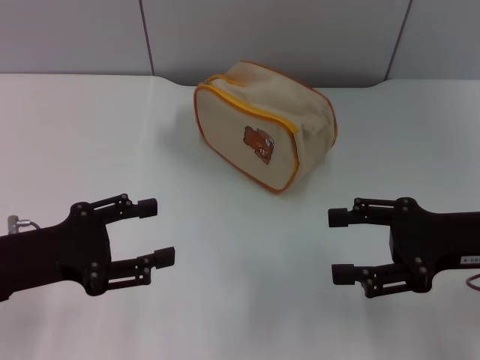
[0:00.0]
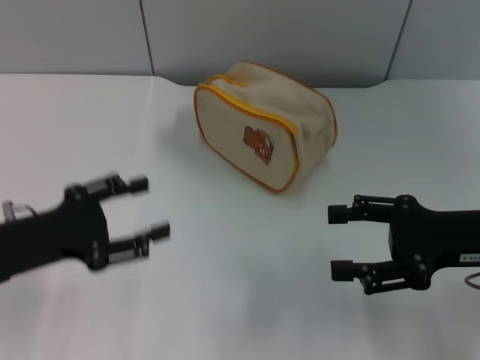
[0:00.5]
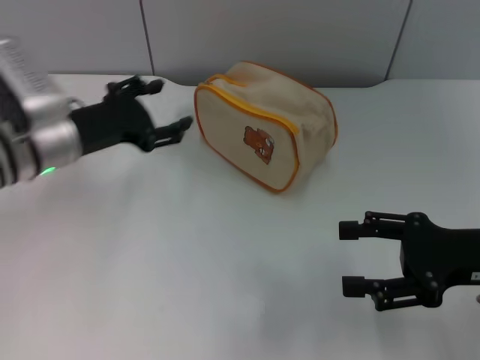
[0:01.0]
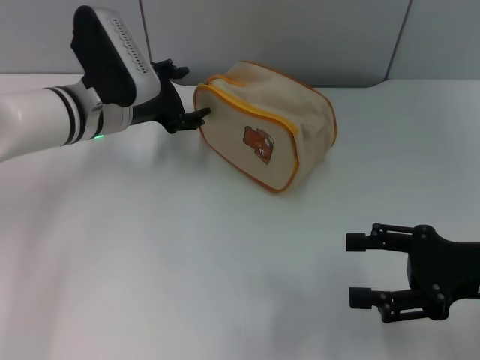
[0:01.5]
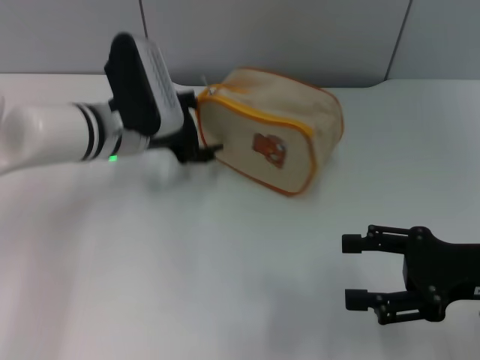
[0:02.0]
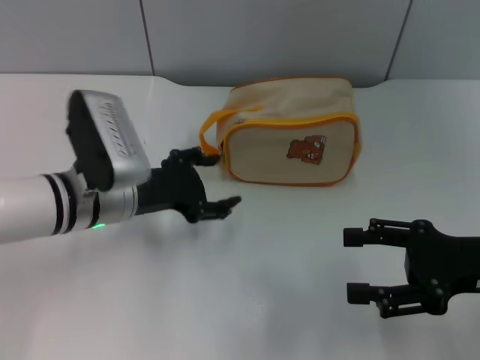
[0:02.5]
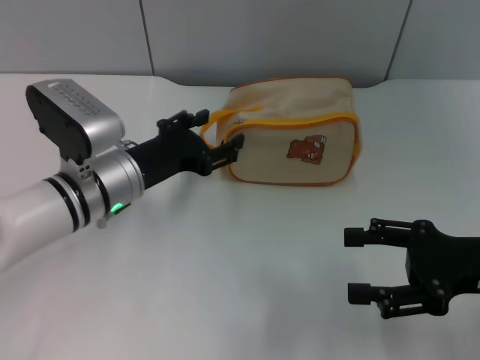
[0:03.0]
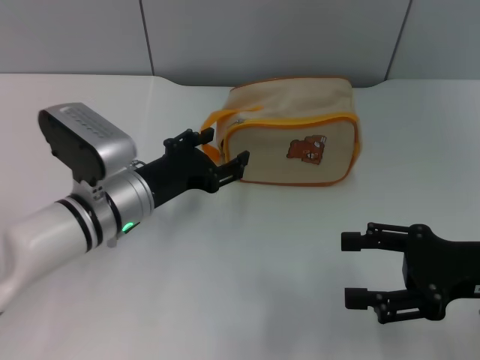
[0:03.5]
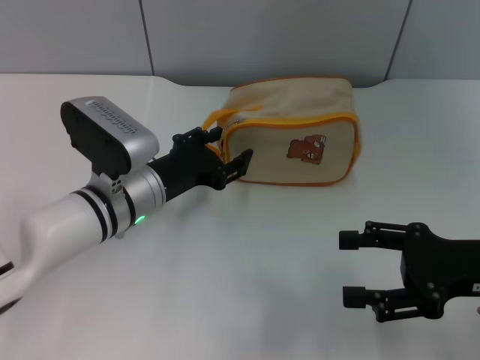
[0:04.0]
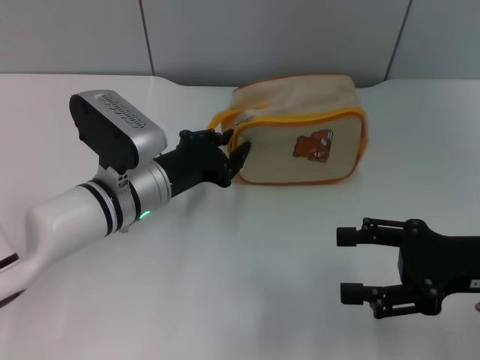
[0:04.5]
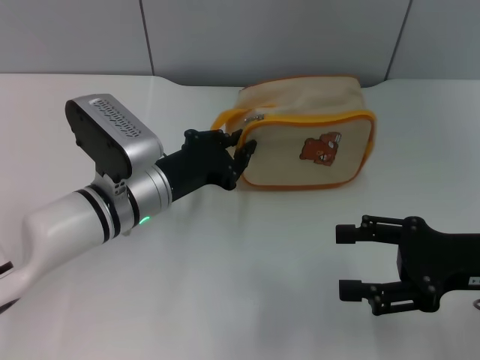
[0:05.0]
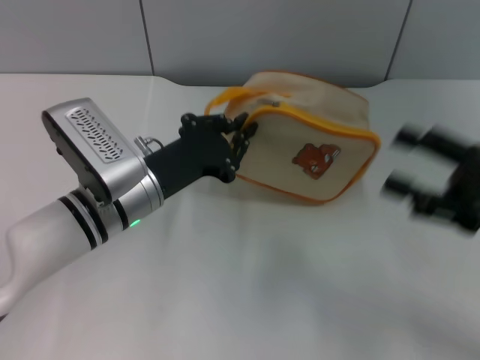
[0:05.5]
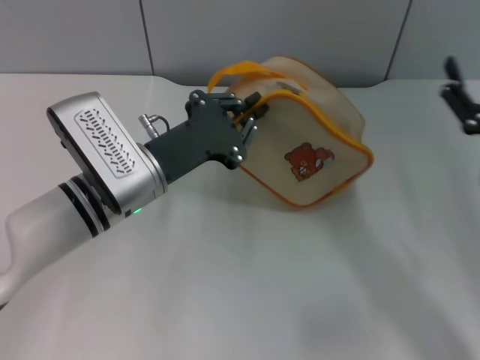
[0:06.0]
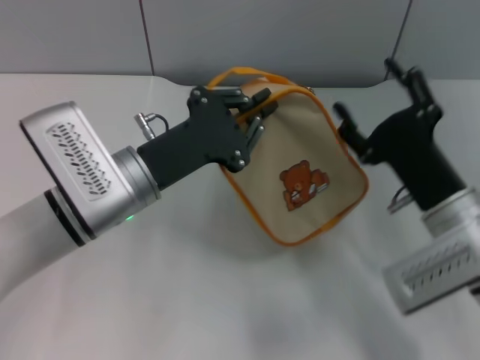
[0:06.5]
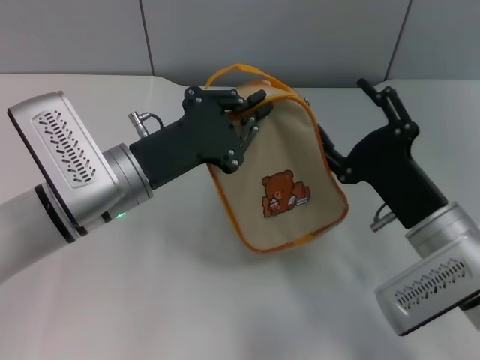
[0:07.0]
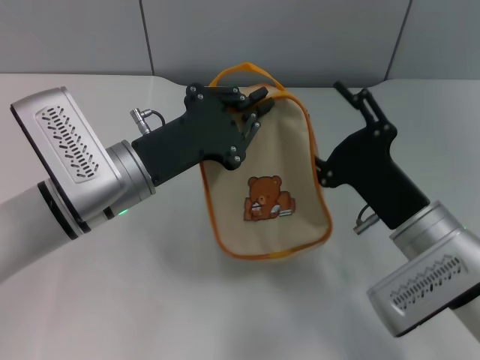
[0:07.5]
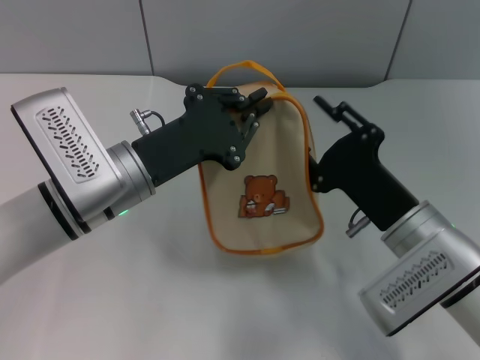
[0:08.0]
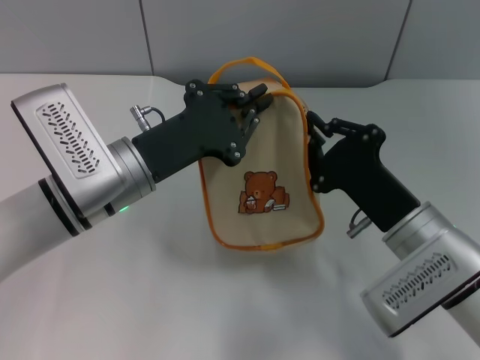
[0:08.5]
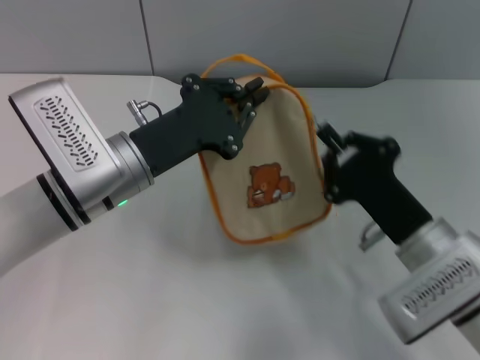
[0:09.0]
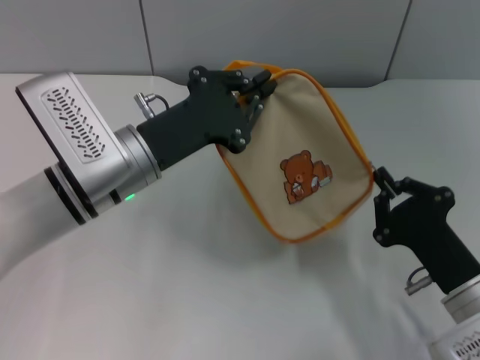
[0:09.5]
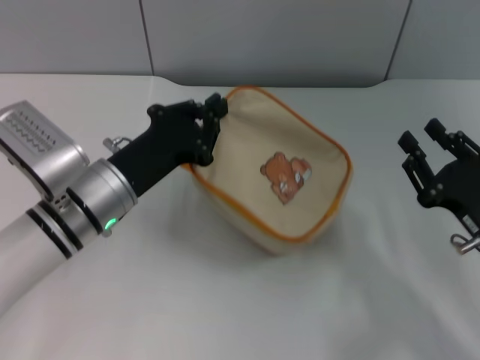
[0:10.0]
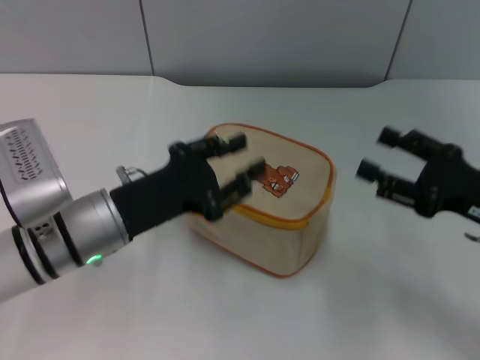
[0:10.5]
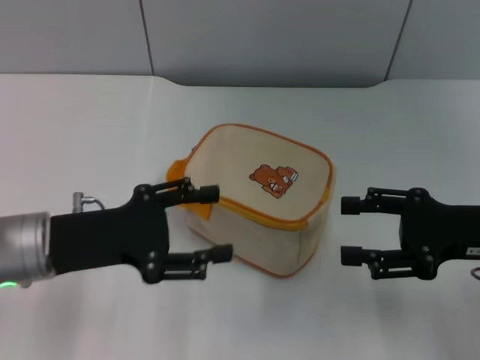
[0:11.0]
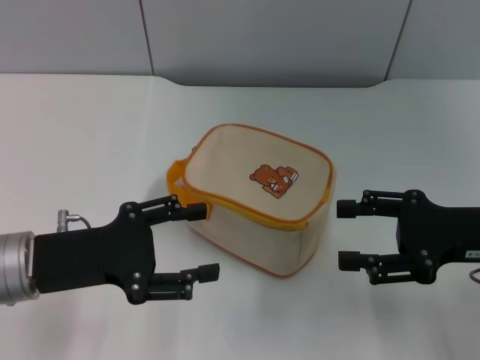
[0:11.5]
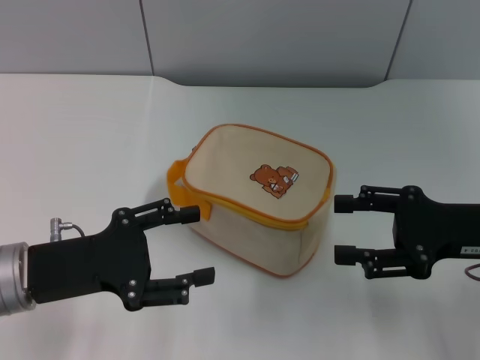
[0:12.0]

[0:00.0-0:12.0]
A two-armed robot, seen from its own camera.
Step, 0:00.0 to 0:05.5: Pick up the bag with left gripper.
Step, 0:06.0 to 0:09.5: Unzip the zipper of bag with right gripper.
0:00.0 to 0:02.0: The left gripper moves forward and to the right, roughly 20 cm.
0:02.0 to 0:04.0: The left gripper goes approximately 5 cm backward.
0:04.0 to 0:06.0: The left gripper closes up.
0:06.0 to 0:08.0: The right gripper goes some 10 cm to the left.
0:08.0 to 0:10.0: The right gripper is displaced to the right by some 10 cm, and closes up.
0:10.0 to 0:12.0: The right gripper is displaced upward by roughly 5 cm, and opens up. The left gripper moves to the left and backward, approximately 10 cm, and opens its fingers.

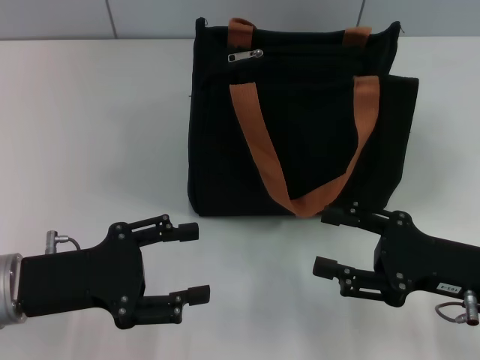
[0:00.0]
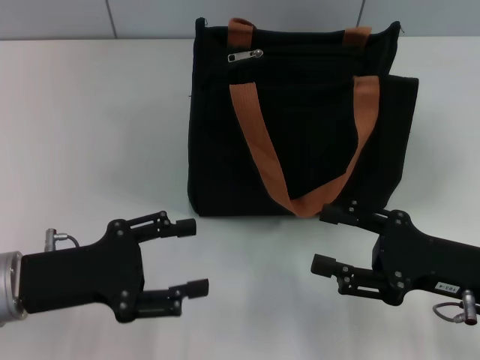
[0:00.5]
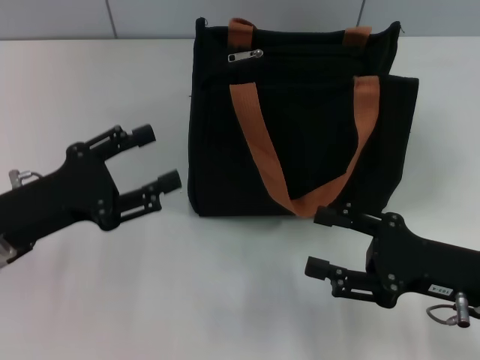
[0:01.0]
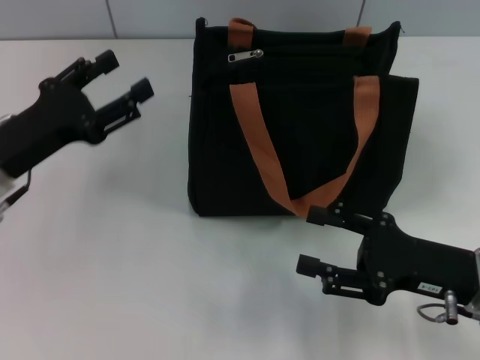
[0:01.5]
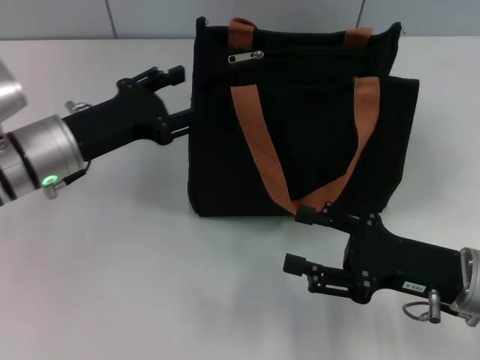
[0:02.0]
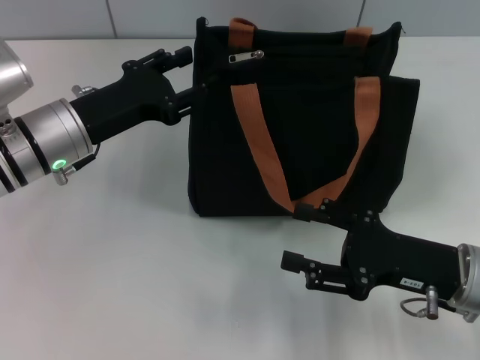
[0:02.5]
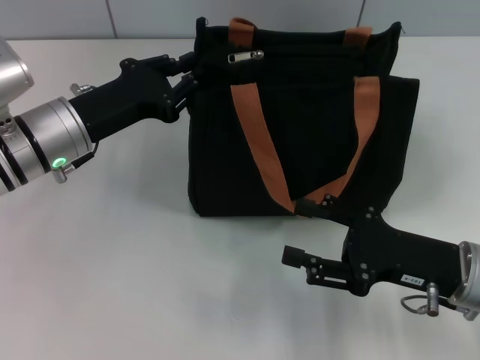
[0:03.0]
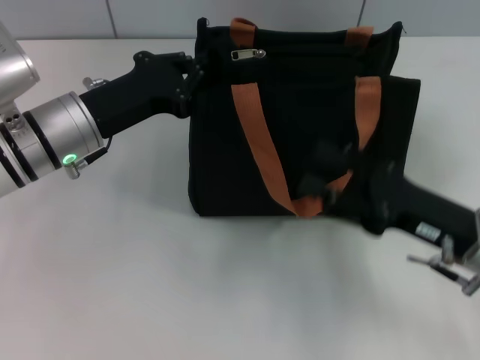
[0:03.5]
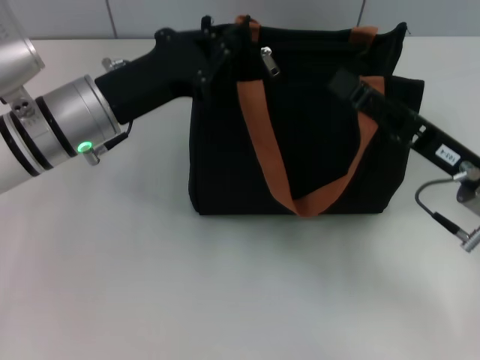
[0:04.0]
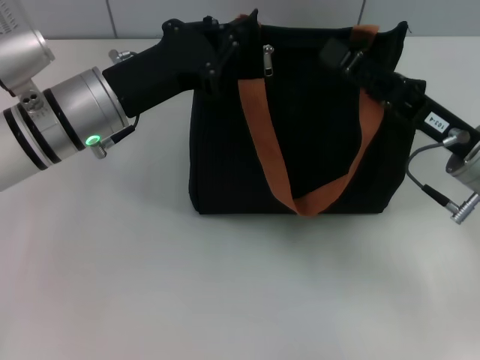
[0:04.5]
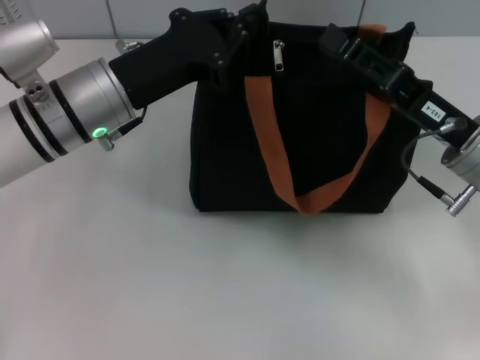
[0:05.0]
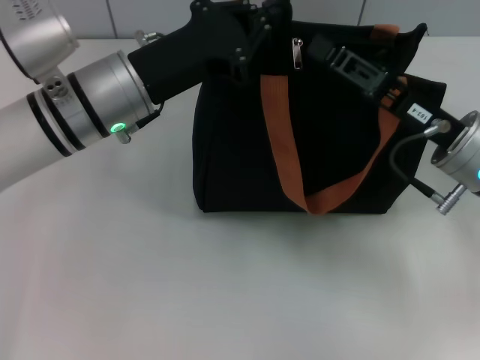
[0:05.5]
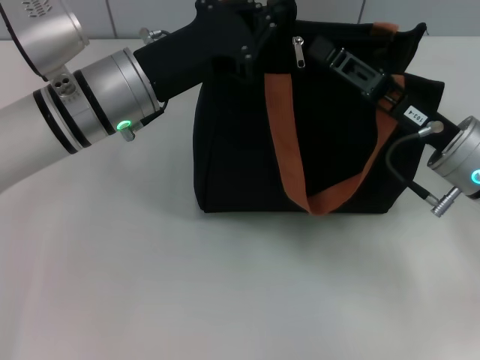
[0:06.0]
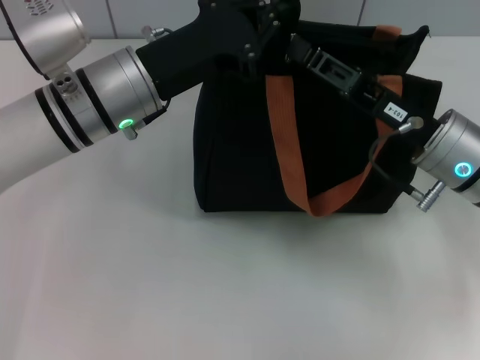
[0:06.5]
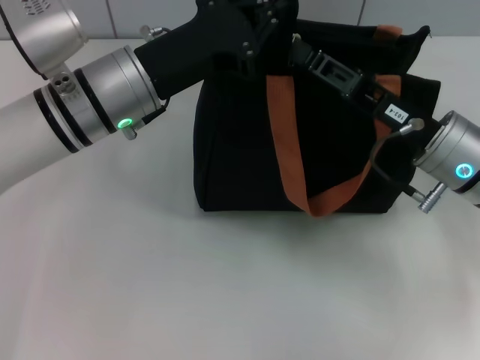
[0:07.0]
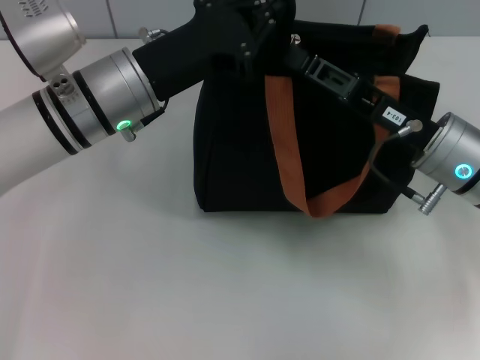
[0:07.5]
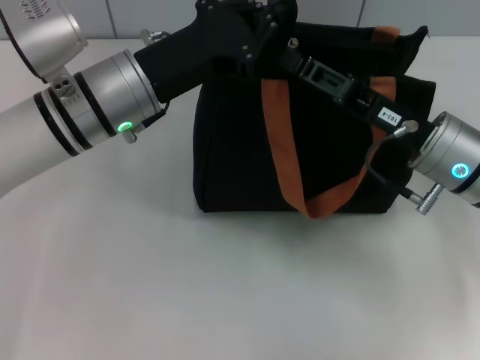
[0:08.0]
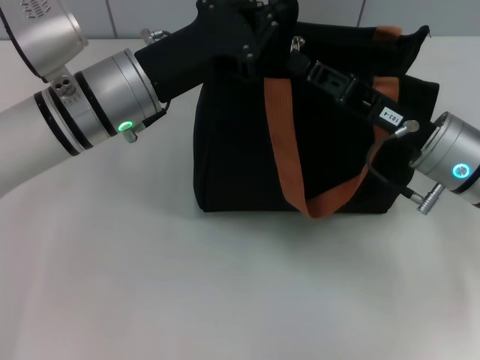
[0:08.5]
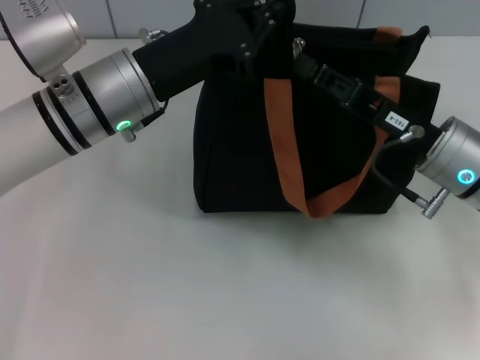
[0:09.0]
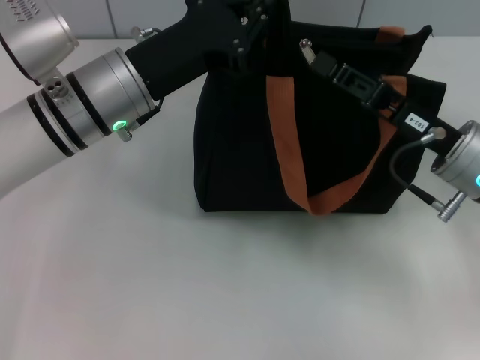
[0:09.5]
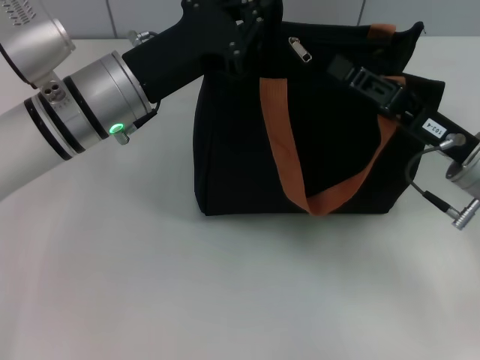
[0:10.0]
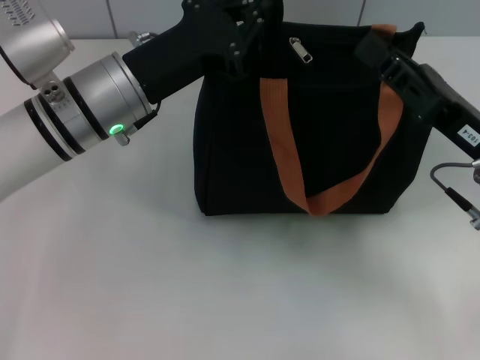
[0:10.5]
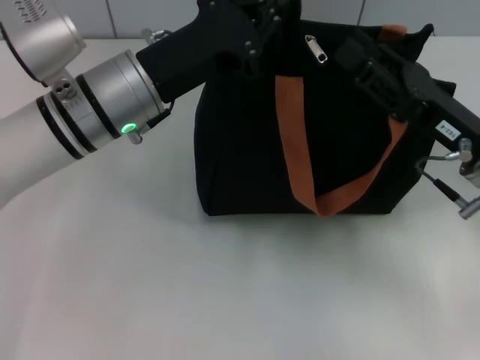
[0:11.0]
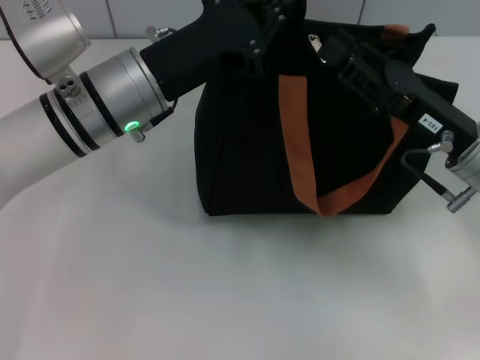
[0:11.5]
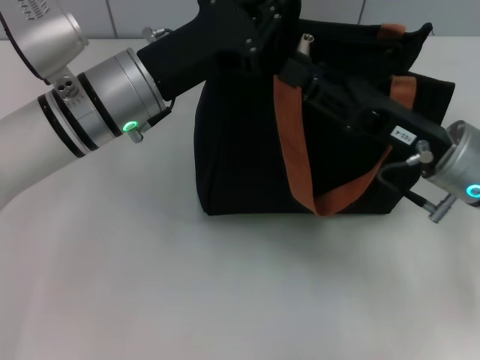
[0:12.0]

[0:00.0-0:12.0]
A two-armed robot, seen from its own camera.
0:00.0 to 0:02.0: The left gripper goes some 10 cm forward.
0:02.0 to 0:04.0: The left gripper changes place by about 5 cm, and closes. The right gripper moves forward, about 5 cm.
0:04.0 to 0:06.0: The right gripper closes its fingers.
0:06.0 to 0:08.0: The grippers stay close to where they were, moving slightly.
0:08.0 to 0:10.0: The right gripper closes up.
0:10.0 to 0:12.0: The right gripper opens its fingers.

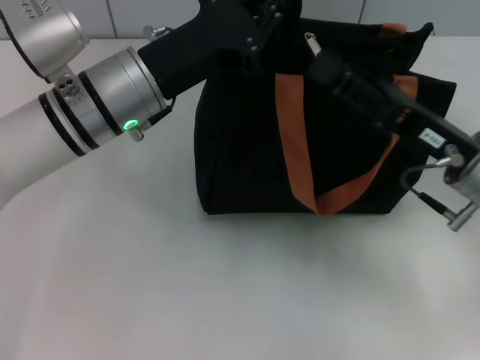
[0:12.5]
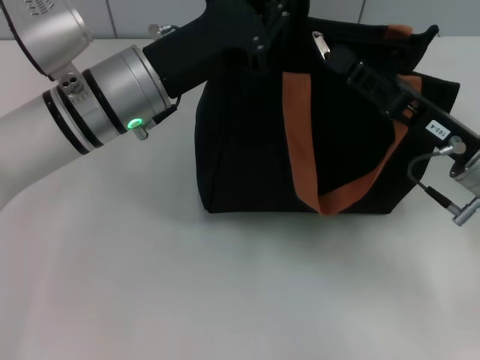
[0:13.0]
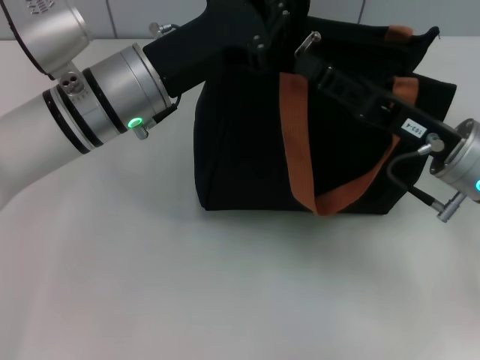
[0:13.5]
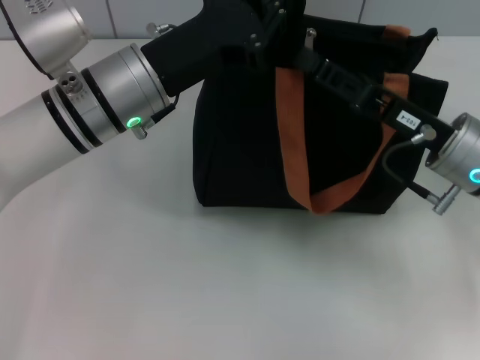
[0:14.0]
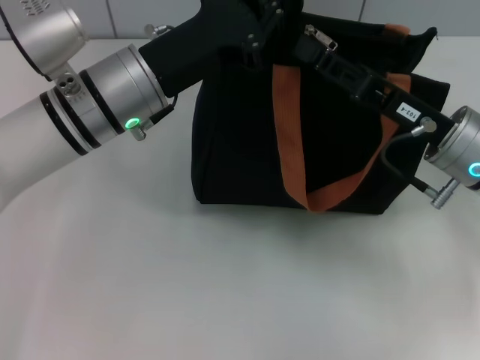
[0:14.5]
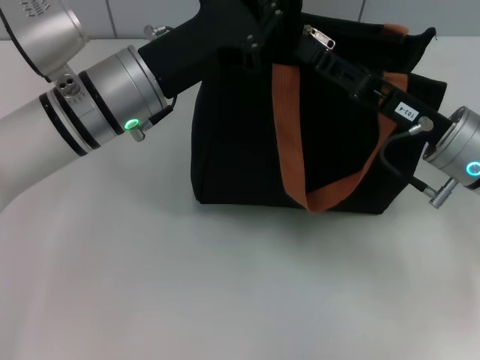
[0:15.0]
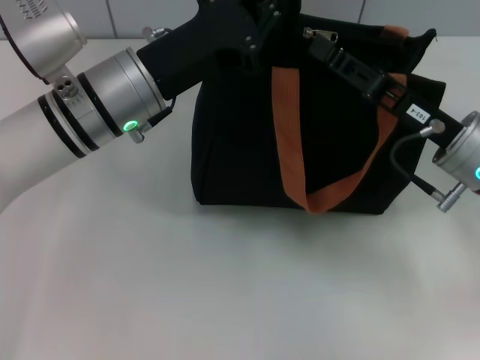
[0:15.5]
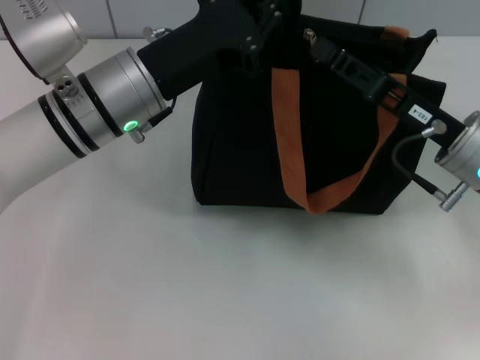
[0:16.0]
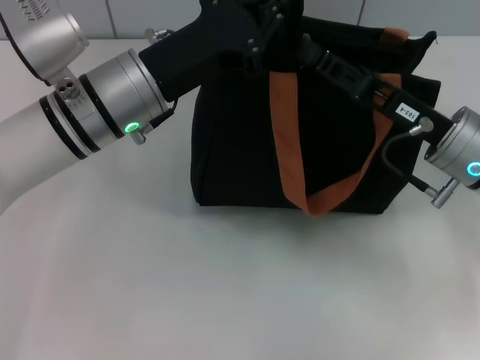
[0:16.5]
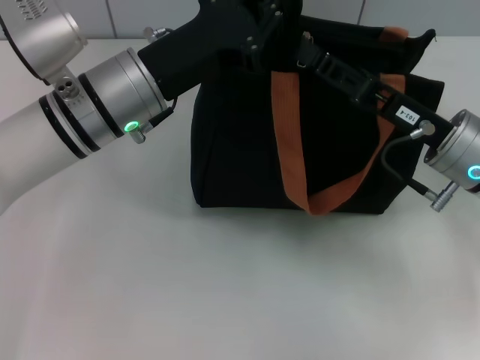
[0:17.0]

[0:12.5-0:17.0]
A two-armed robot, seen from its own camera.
0:12.5 to 0:17.0: The grippers make only small movements.
